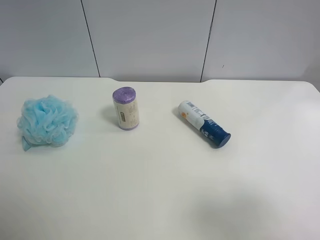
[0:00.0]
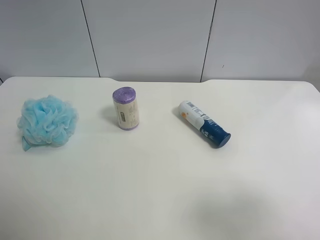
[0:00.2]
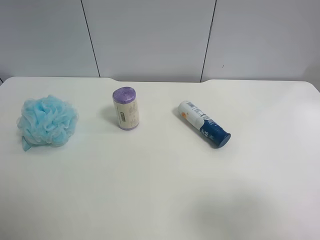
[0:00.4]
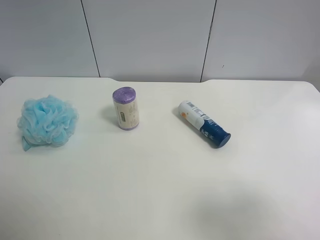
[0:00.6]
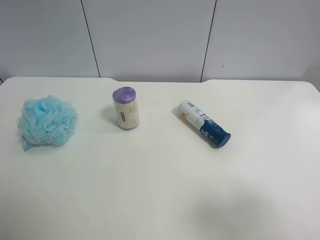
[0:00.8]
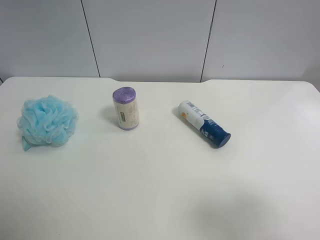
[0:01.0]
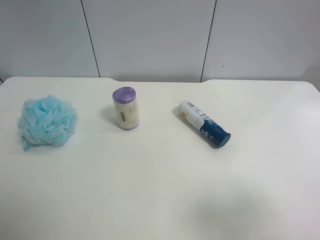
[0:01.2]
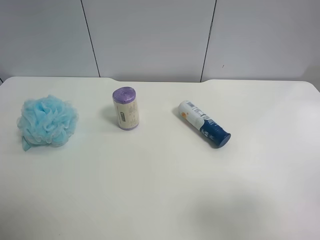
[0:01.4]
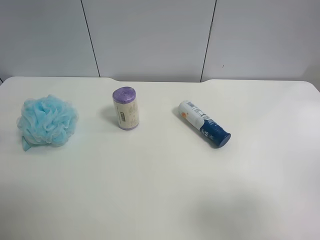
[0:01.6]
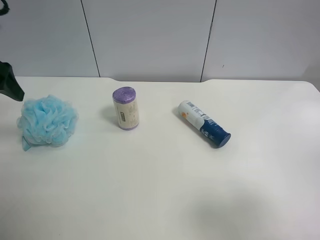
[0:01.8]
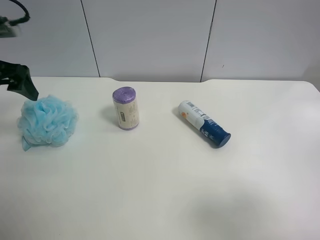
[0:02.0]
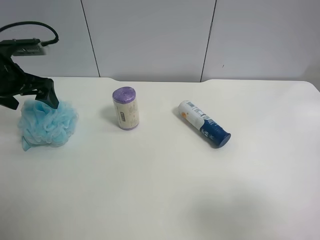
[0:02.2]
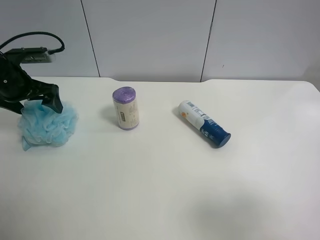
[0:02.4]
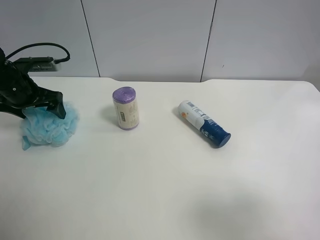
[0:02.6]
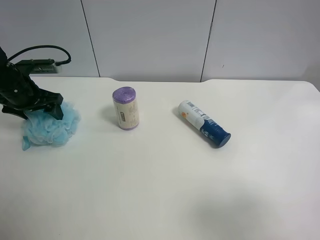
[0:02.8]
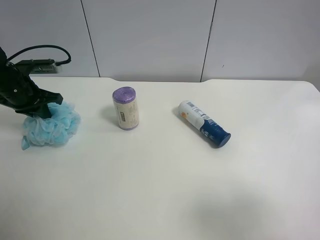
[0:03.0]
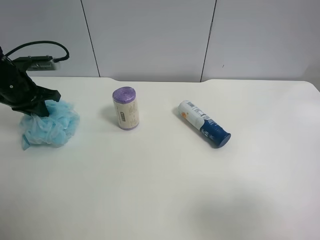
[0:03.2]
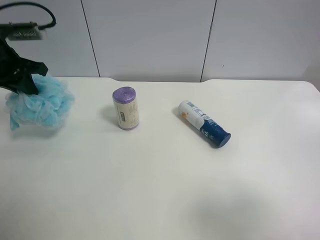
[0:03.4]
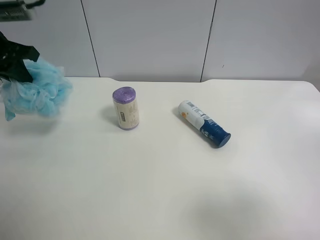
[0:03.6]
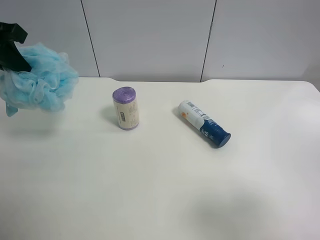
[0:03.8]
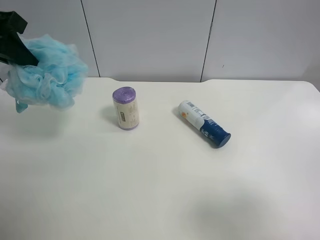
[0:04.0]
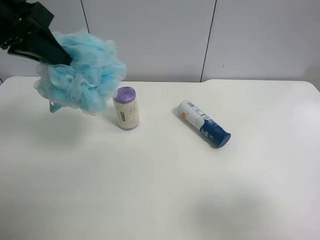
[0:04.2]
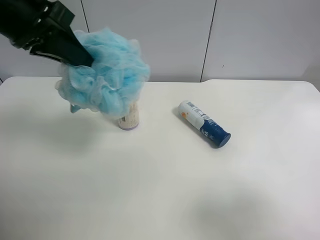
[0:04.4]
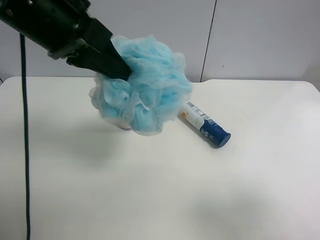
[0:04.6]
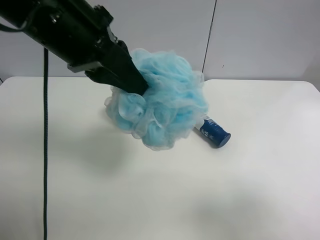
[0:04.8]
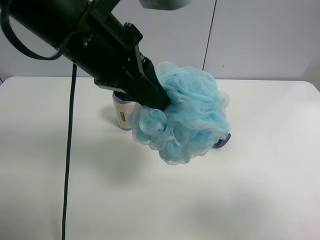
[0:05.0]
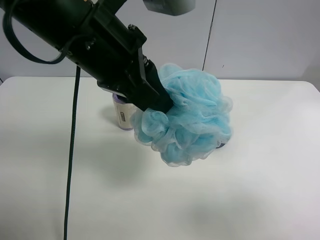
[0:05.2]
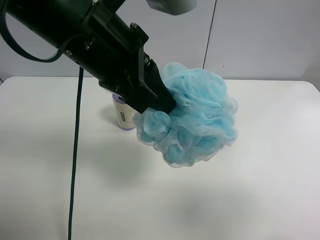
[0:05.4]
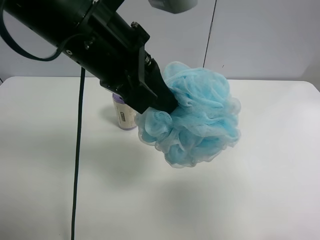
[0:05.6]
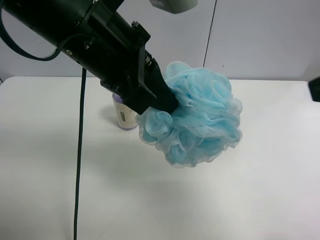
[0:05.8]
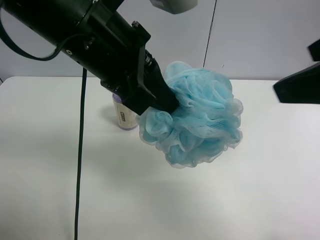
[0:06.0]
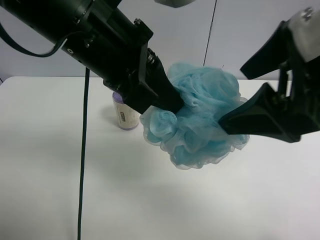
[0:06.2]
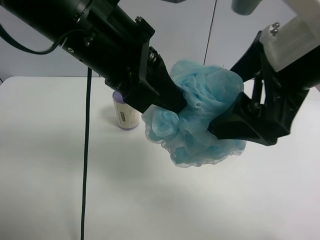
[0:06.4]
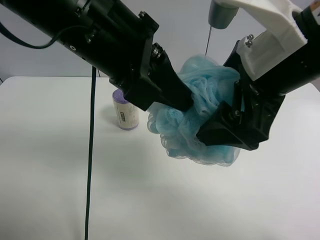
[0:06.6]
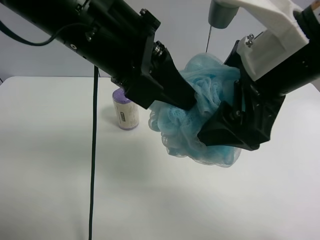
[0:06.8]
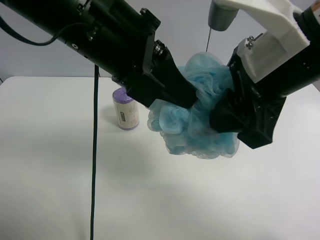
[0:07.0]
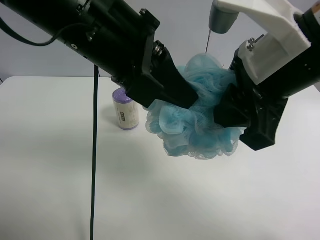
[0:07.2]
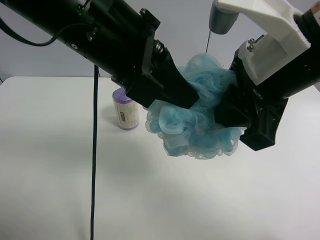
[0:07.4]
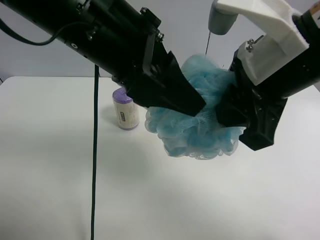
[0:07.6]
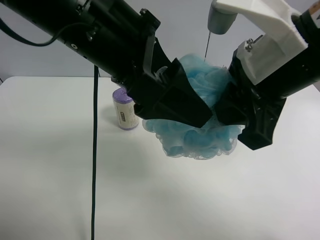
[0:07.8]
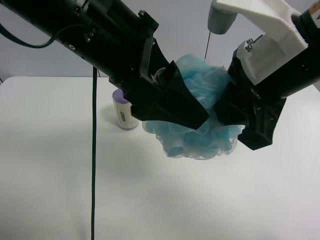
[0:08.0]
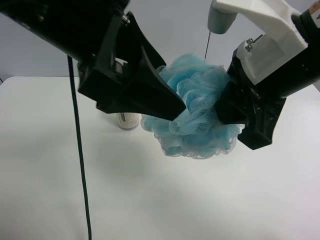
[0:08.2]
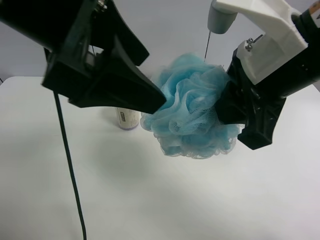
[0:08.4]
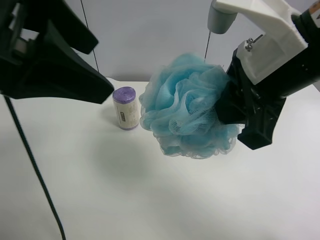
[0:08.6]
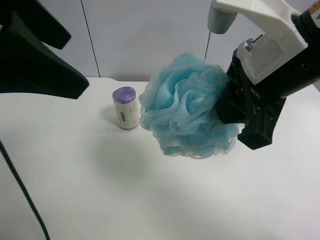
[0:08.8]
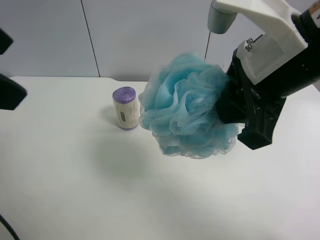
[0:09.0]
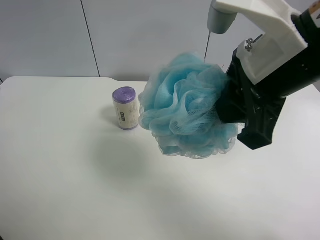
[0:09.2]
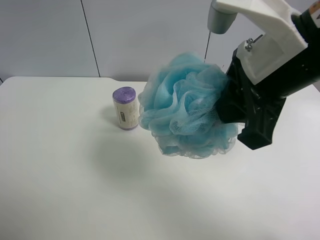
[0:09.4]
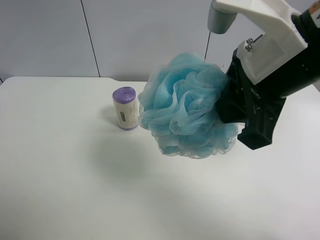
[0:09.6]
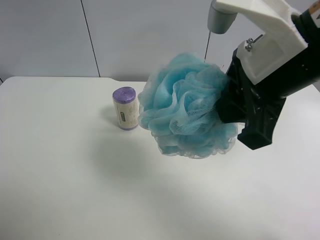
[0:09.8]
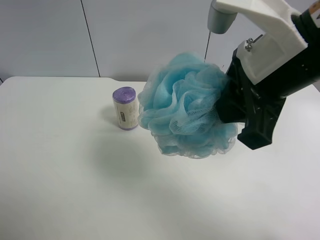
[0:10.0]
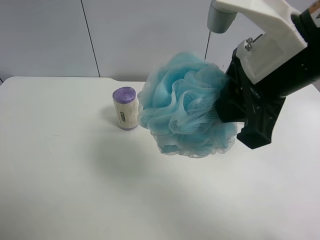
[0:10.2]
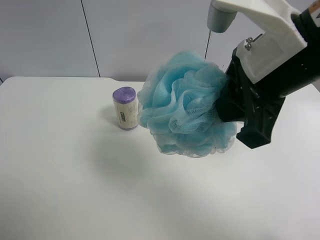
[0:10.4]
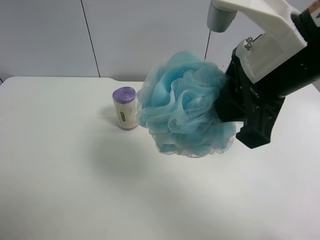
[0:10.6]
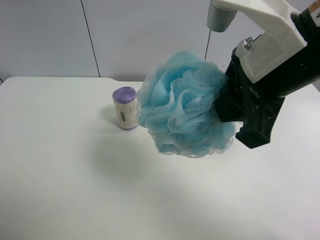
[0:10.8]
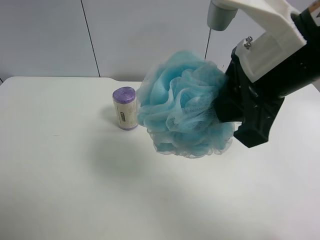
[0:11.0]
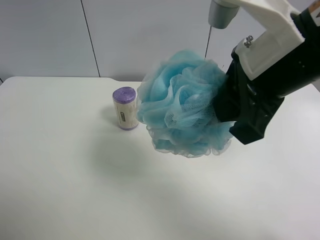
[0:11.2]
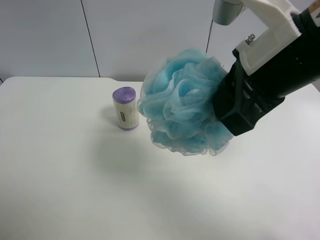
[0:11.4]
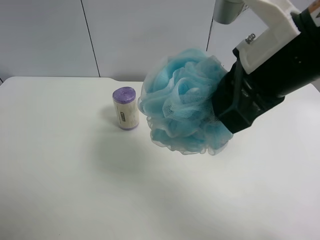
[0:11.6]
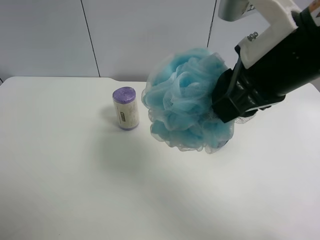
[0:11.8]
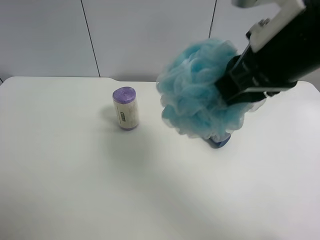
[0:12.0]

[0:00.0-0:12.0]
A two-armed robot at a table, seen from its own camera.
Task of the whole recording: use the left gripper to pick up the item and transfer it from the left gripper to the right gripper.
0:01.6 to 0:03.0: The left gripper is displaced downward and forward by approximately 20 cm, and closes.
0:03.0 to 0:04.4: The left gripper heads upward, to the right and backward, covering some 25 cm.
0:04.4 to 0:06.0: The left gripper travels to the right by approximately 10 cm. Meanwhile the right gripper goes roughly 20 cm forward, upward and to the left.
0:06.0 to 0:07.6: The left gripper opens up, while the right gripper shifts about 5 cm to the left, and closes.
0:07.6 to 0:09.0: The left gripper heads to the left, backward and upward, covering about 20 cm.
0:09.0 to 0:10.4: The left gripper is displaced downward, backward and to the left by roughly 20 cm.

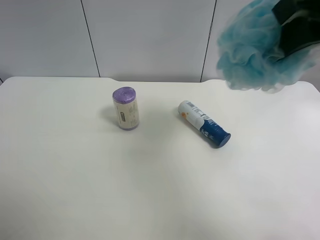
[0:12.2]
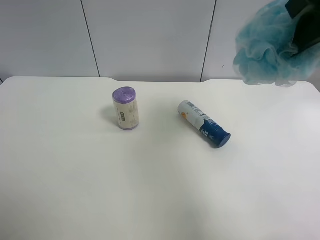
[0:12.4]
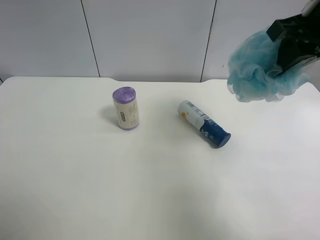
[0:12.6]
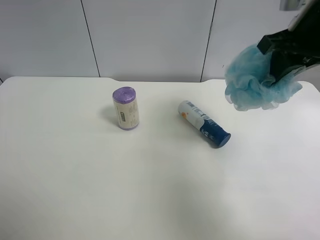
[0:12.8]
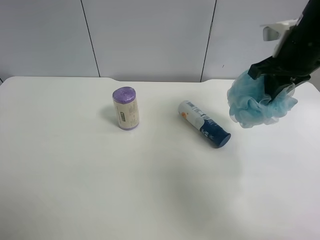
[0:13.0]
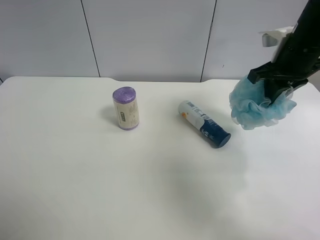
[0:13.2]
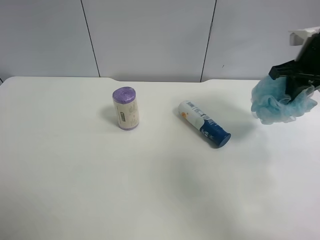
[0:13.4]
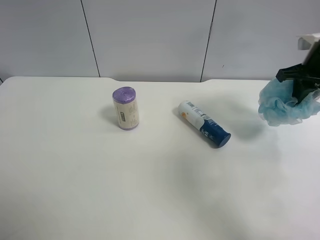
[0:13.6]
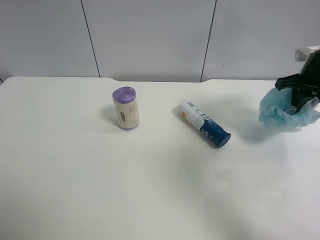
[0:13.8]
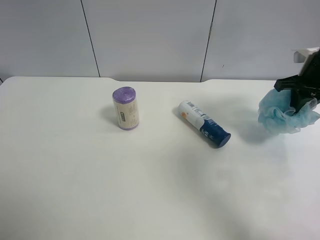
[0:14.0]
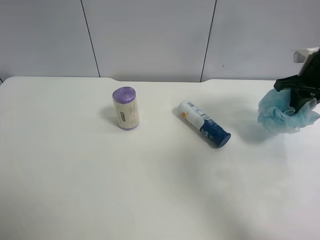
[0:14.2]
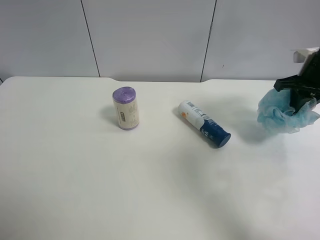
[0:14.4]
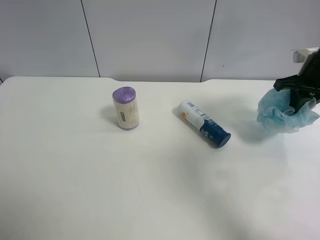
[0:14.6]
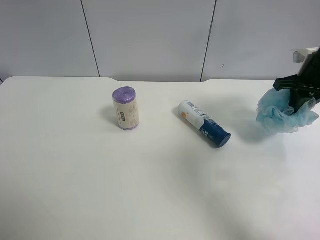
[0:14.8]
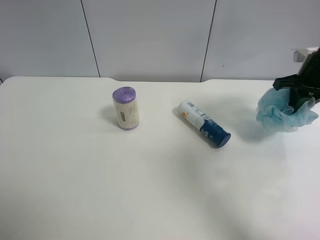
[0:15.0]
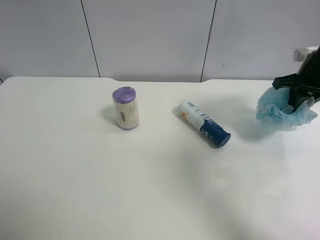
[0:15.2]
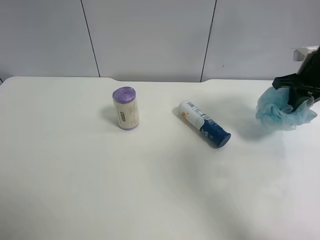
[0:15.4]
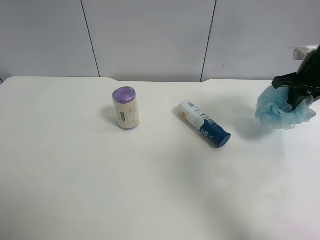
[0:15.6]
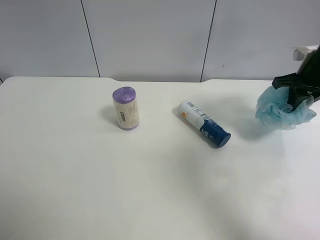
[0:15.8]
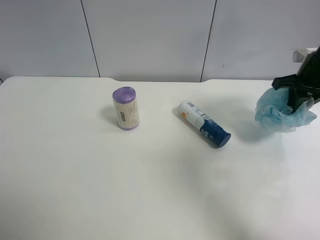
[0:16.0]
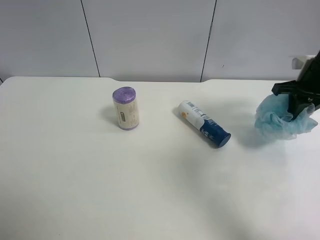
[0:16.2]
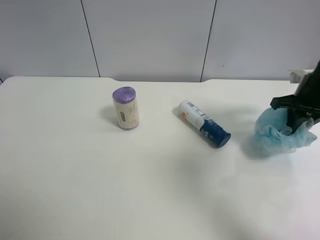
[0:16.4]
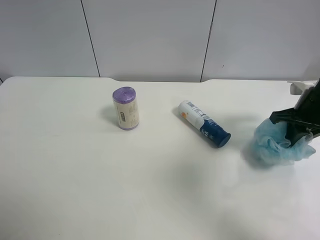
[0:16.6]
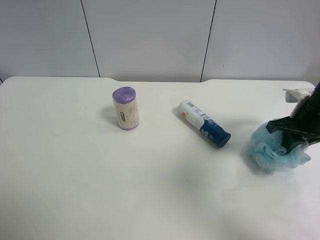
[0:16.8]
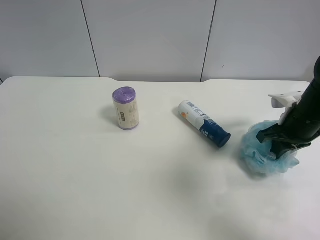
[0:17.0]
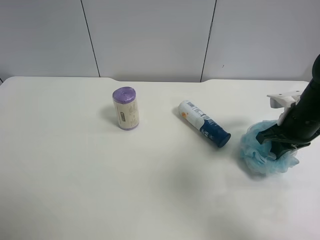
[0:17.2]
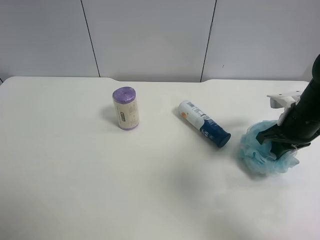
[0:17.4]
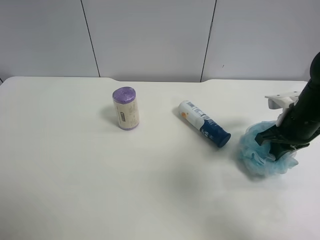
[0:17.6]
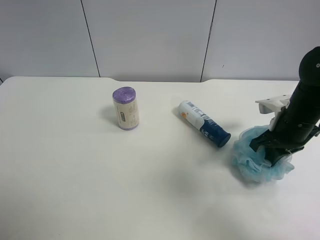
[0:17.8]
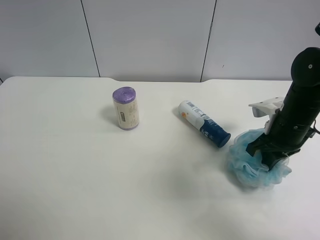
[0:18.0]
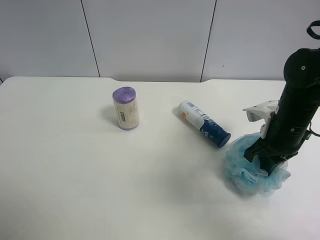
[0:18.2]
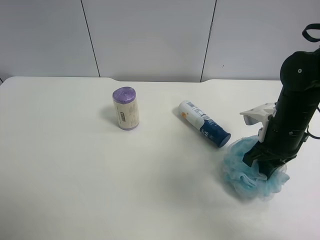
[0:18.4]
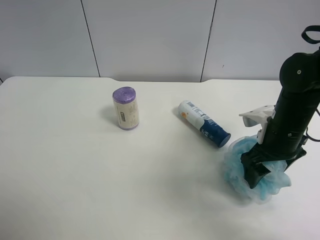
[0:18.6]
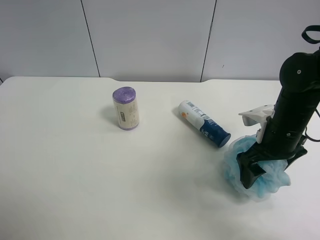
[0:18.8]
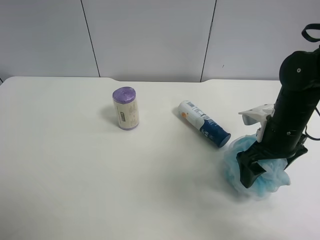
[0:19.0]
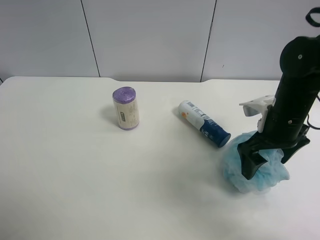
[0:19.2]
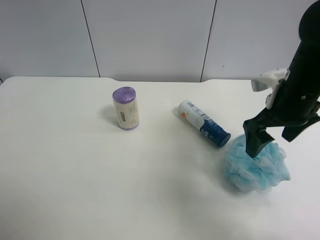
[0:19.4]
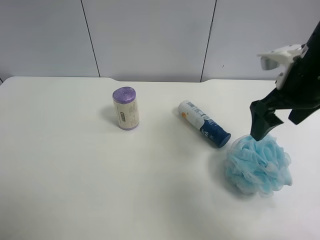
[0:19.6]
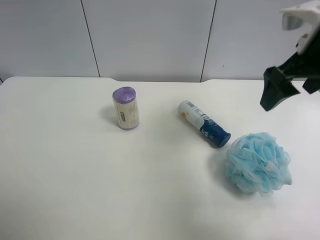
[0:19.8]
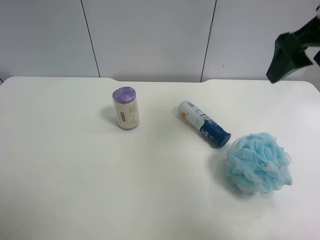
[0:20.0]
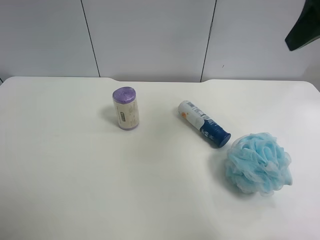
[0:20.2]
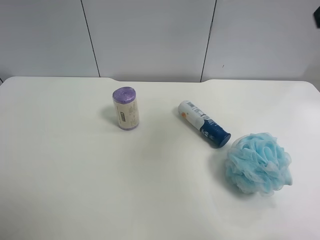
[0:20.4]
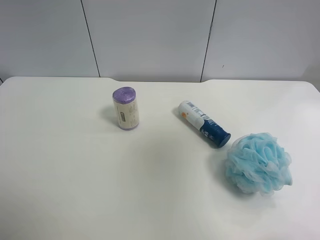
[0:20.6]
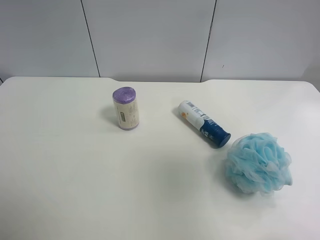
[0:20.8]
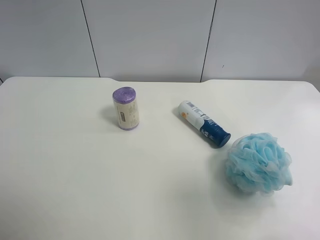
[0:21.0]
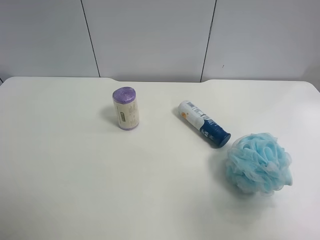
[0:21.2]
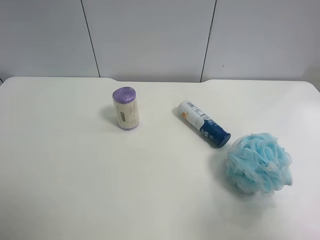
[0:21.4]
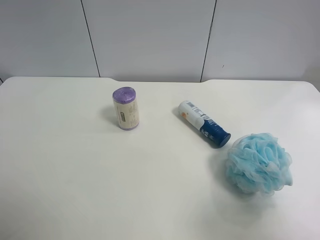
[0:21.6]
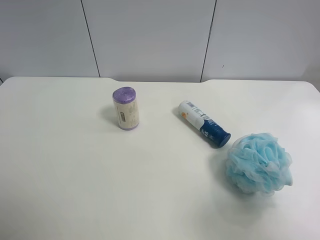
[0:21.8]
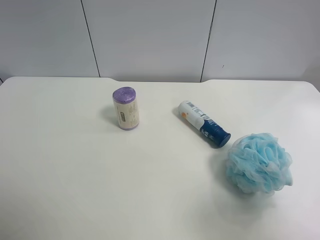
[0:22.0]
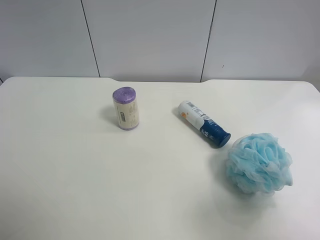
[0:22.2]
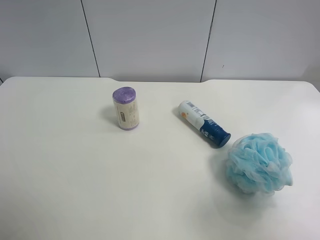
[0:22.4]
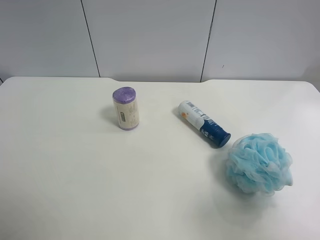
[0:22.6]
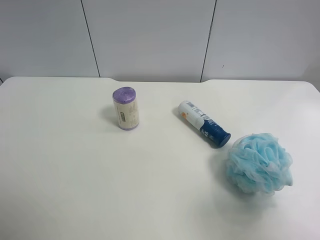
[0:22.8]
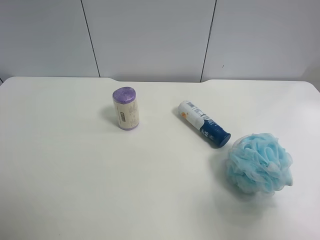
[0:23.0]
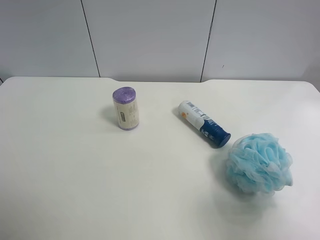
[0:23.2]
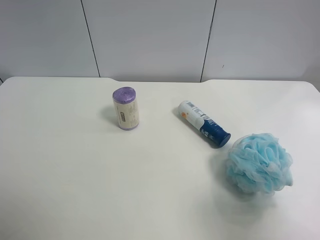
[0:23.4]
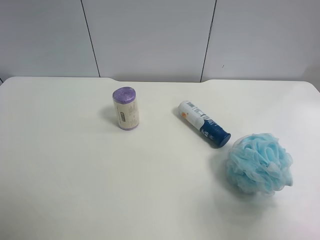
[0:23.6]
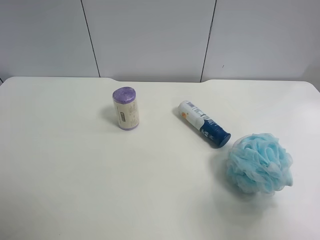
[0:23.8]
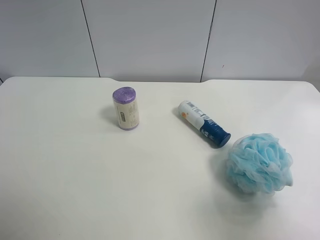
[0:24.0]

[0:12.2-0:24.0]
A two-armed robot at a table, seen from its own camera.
Task of the whole recording: use the left gripper to pick up the item and transfer it from the left gripper to the right gripper.
0:12.2 to 0:13.6: The right gripper heads downward, forward and to the right, covering roughly 25 cm.
0:13.6 to 0:15.2: The grippers stay close to where they were, moving slightly.
0:15.2 to 0:16.6: The right gripper is displaced backward by some 5 cm.
0:16.6 to 0:18.2: The right gripper heads to the left, covering approximately 10 cm.
0:18.2 to 0:19.6: The right gripper goes roughly 10 cm upward, and opens its fingers.
0:19.6 to 0:21.0: The right gripper moves backward, some 25 cm.
0:21.0 to 0:22.6: The right gripper moves downward, about 5 cm.
